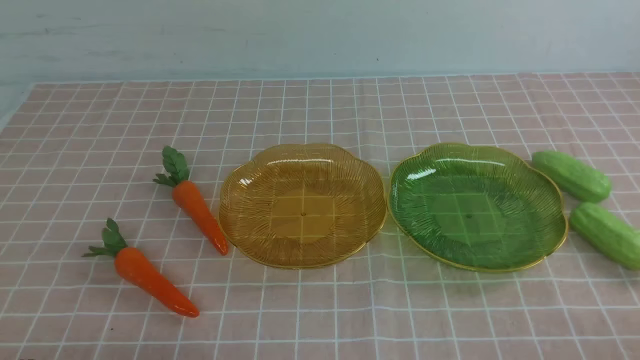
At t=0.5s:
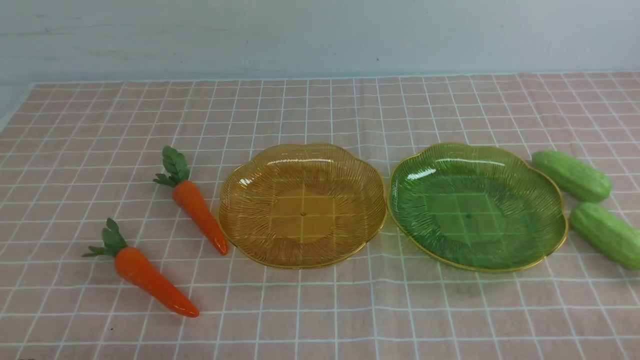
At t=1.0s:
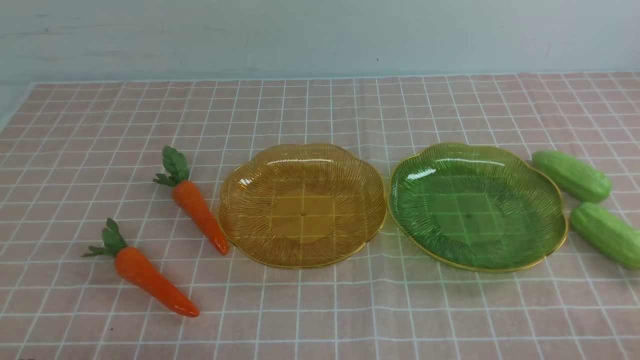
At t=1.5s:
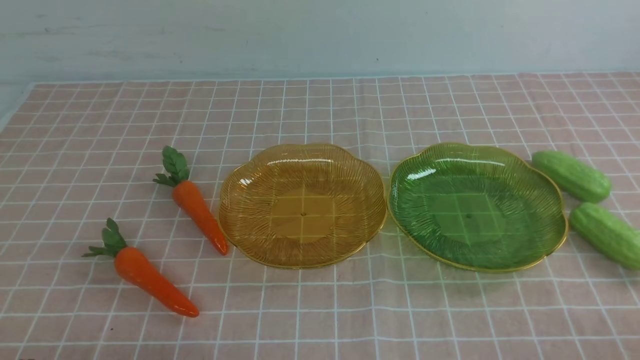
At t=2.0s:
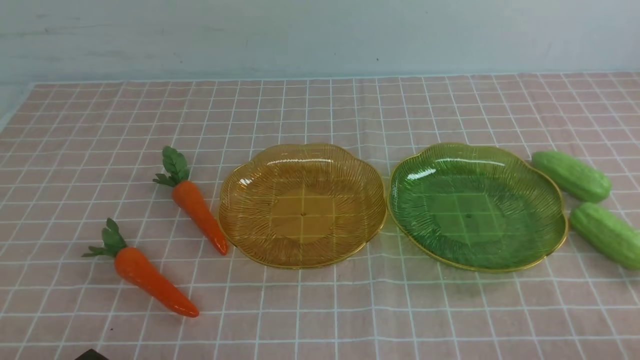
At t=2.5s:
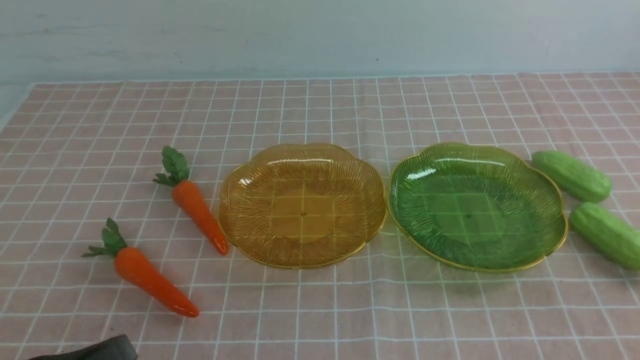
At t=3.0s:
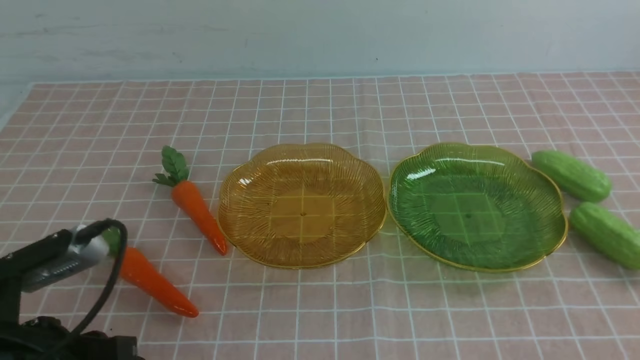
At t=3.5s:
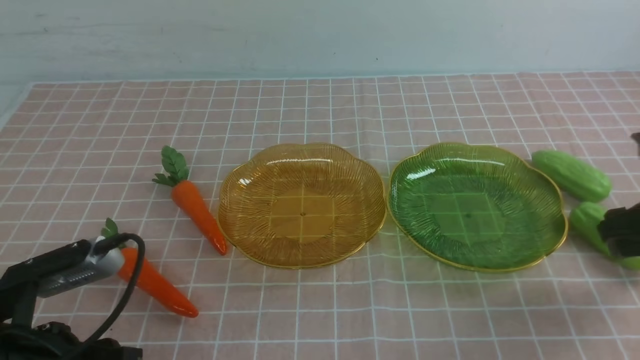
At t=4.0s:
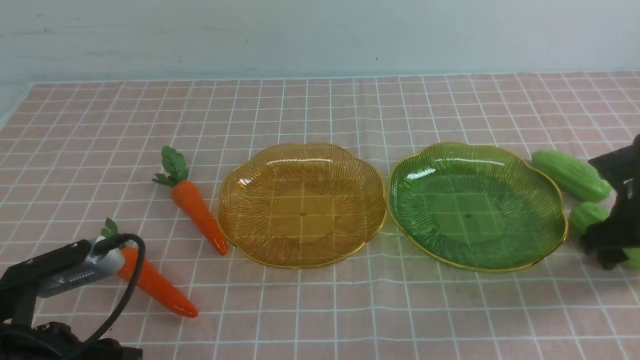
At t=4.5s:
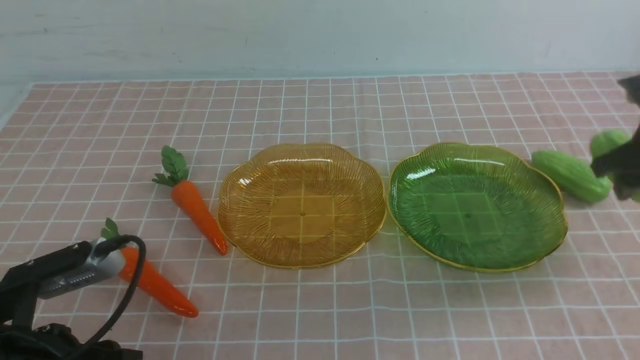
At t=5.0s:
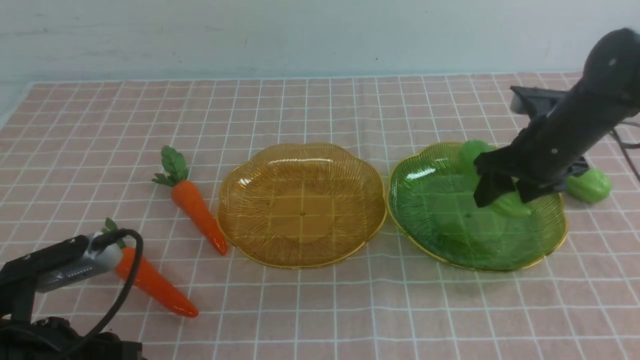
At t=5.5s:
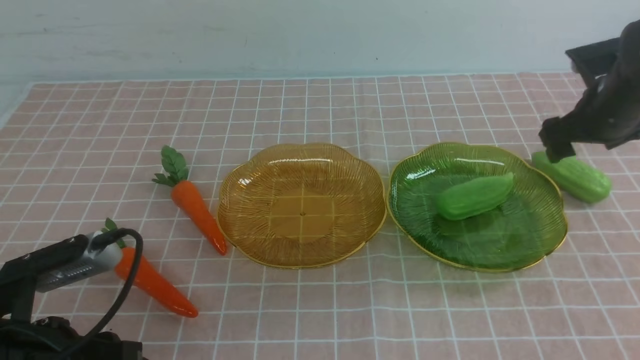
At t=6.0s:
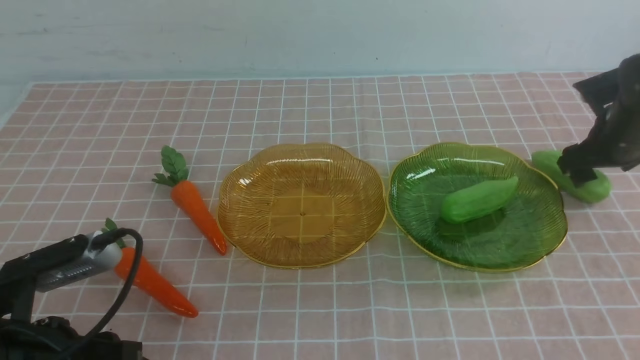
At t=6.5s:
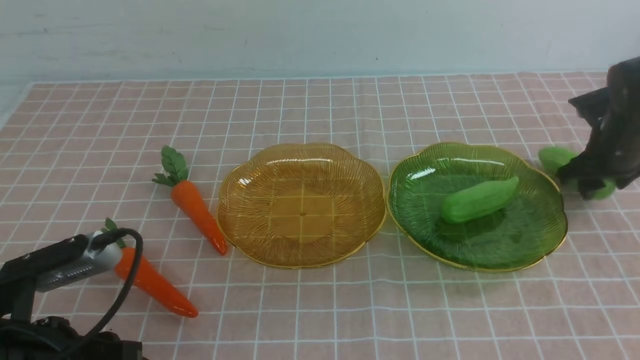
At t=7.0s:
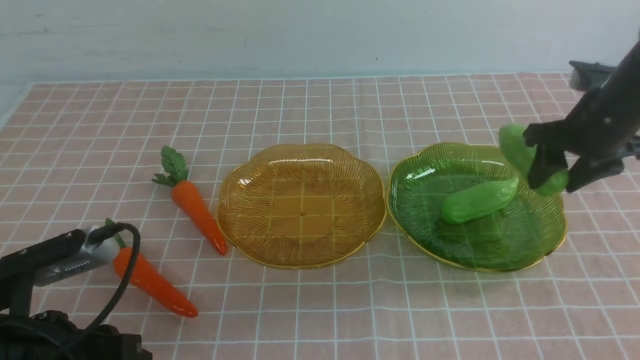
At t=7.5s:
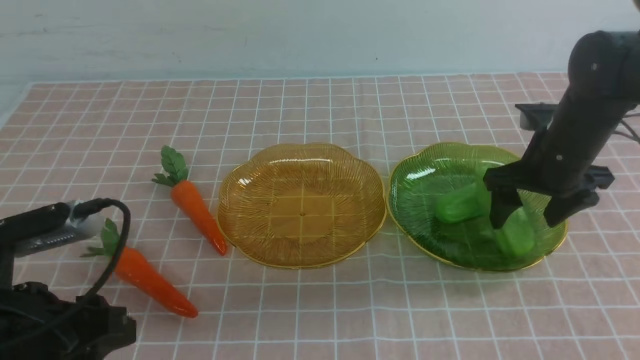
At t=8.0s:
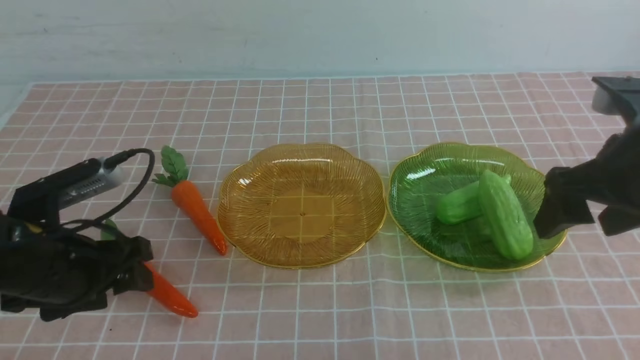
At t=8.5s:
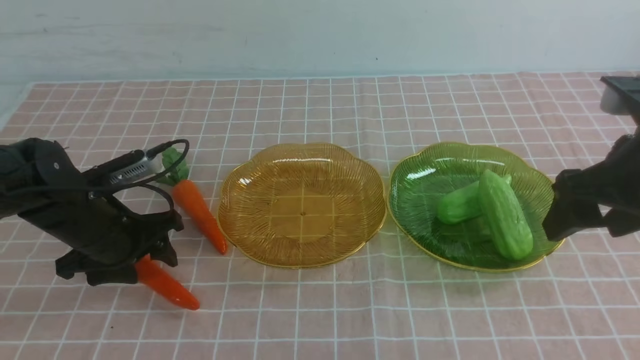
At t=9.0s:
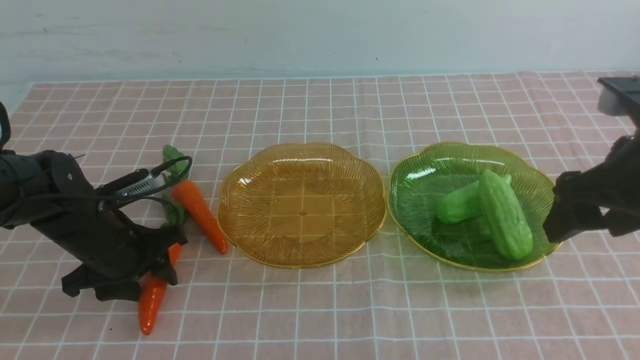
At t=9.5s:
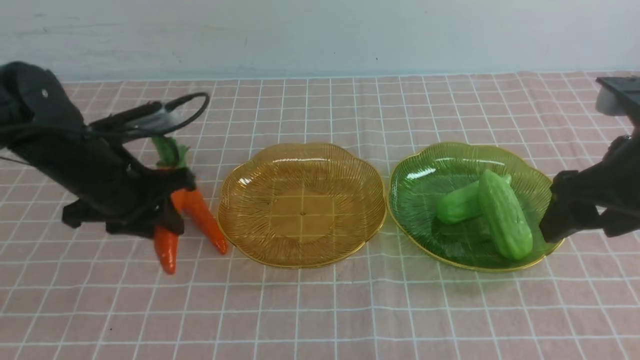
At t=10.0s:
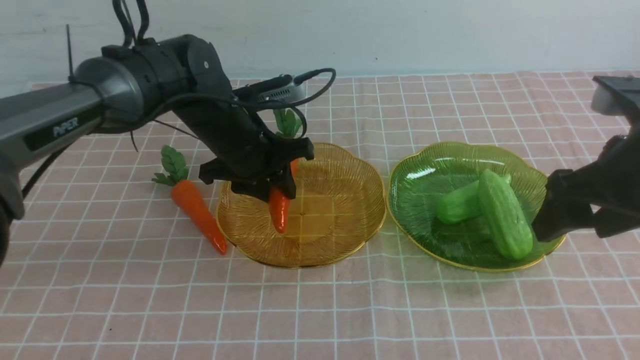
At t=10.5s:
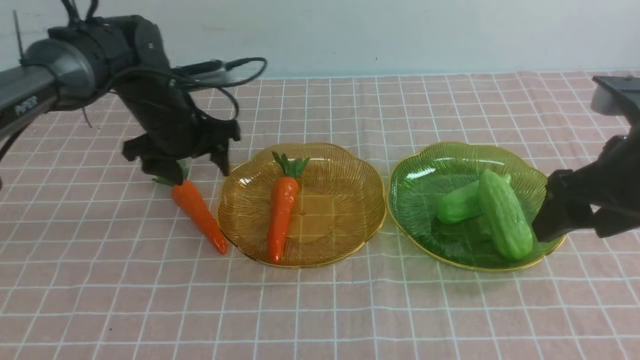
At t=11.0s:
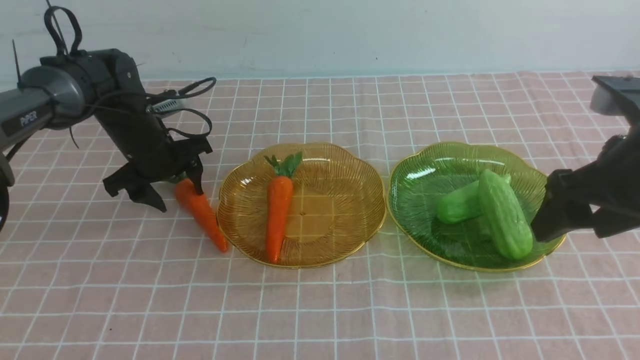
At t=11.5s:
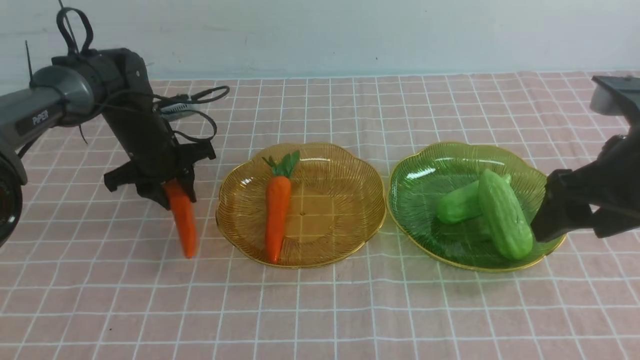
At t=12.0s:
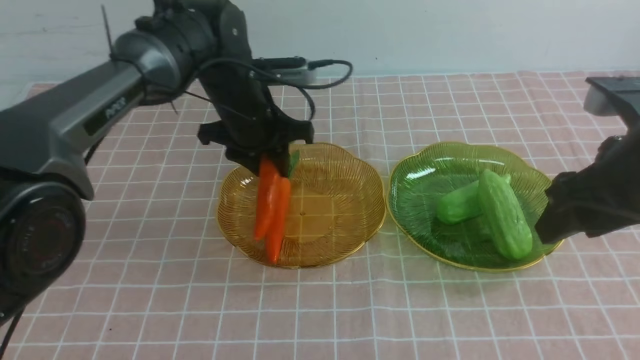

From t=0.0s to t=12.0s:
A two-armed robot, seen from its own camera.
Step, from t=0.0s to t=5.0s: use the right arm to grab a chayote and put it into the right plate.
Step, from t=5.5s to t=7.5s: use the right arm to grab a chayote and put it into the right plate.
Step, from t=8.0s to t=10.0s: use the left arm to grab a carrot and put it into the left plate.
From t=2.0s to t=4.0s: The right gripper goes approximately 30 cm forward, and opens its fingers. The left gripper heads forward and upward, covering roughly 10 cm, and opens up.
From t=4.0s to t=6.0s: The right gripper shifts approximately 10 cm forward.
From t=6.0s to t=8.0s: The right gripper is displaced backward, upward and to the left by roughly 20 cm. Meanwhile the left gripper shifts roughly 5 cm forward, and opens its fingers.
From t=8.0s to t=10.0s: The left gripper goes approximately 25 cm forward and to the right, and closes, then opens again.
From t=10.0s to t=12.0s: The left gripper heads to the right, covering some 5 cm; the right gripper shifts some 5 cm backward, and closes its fingers.

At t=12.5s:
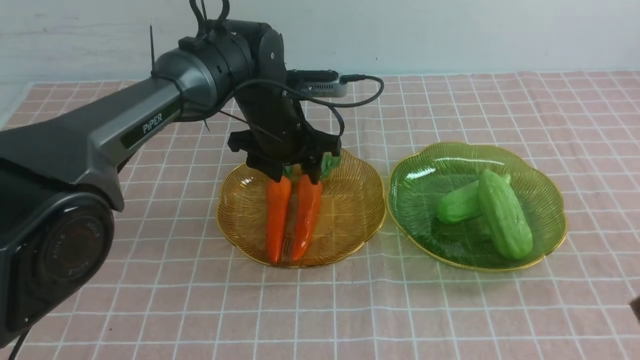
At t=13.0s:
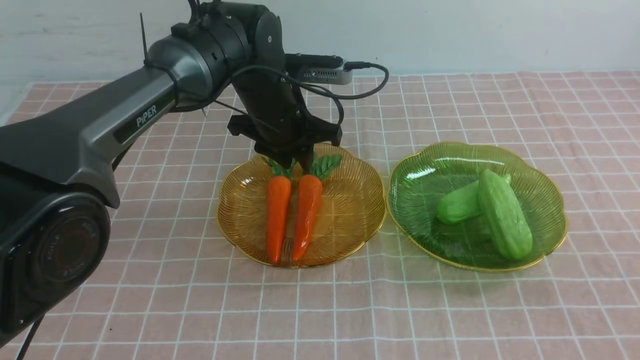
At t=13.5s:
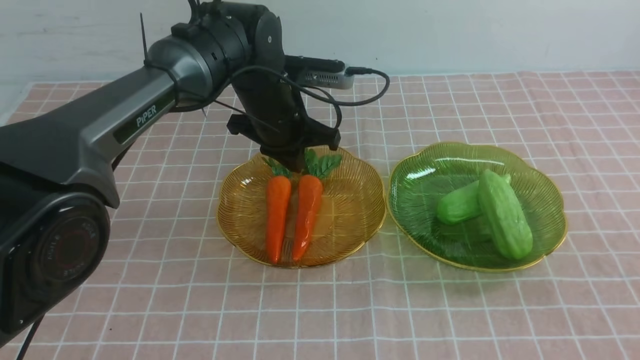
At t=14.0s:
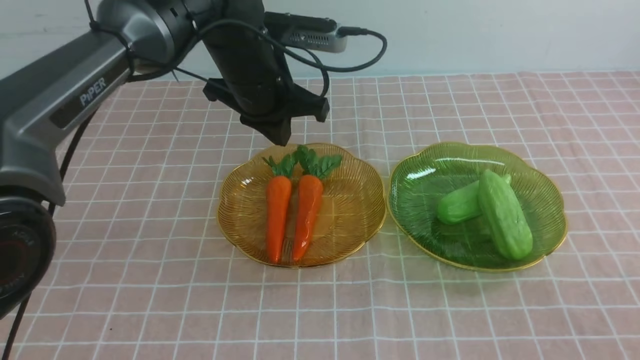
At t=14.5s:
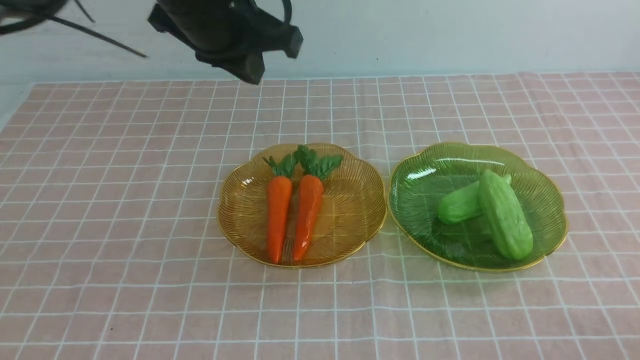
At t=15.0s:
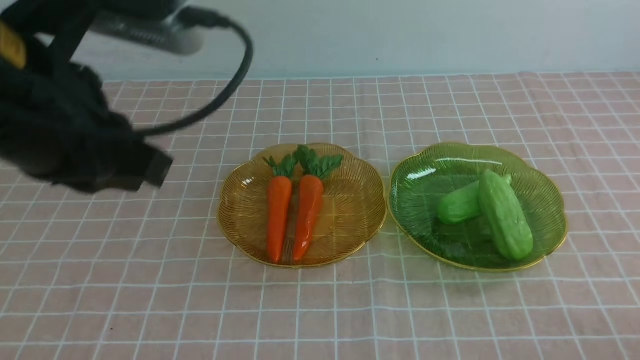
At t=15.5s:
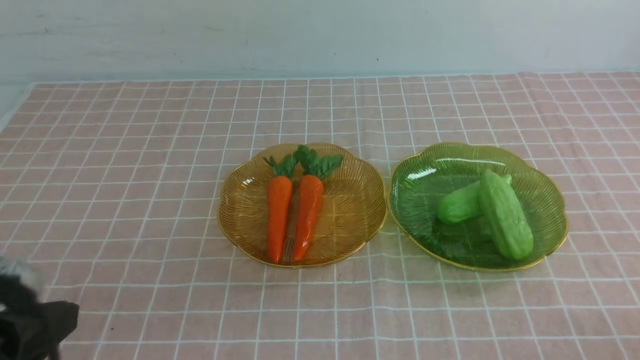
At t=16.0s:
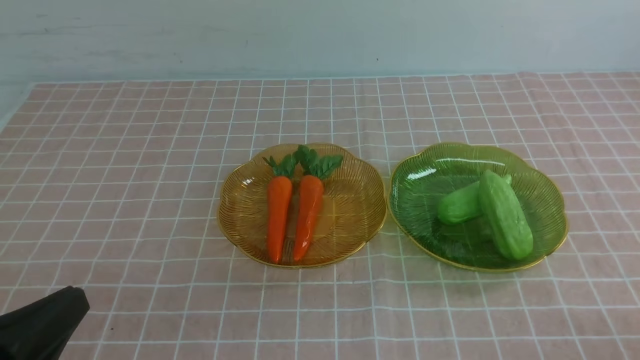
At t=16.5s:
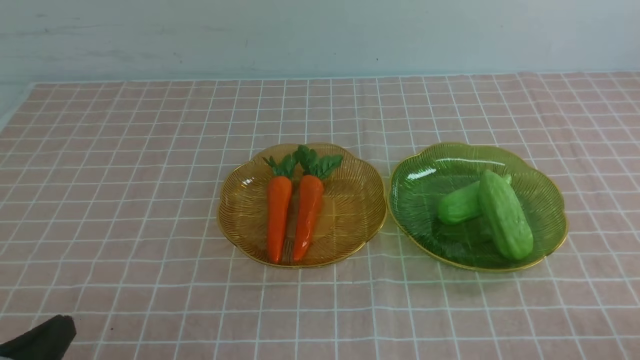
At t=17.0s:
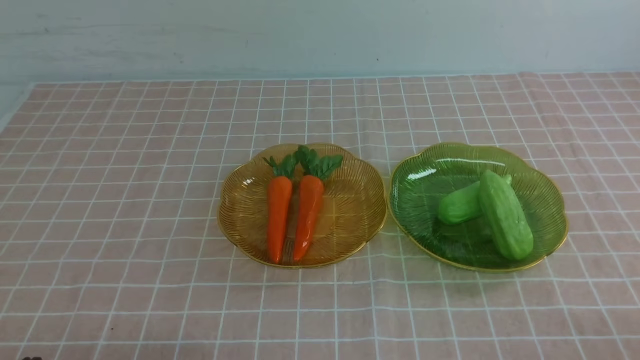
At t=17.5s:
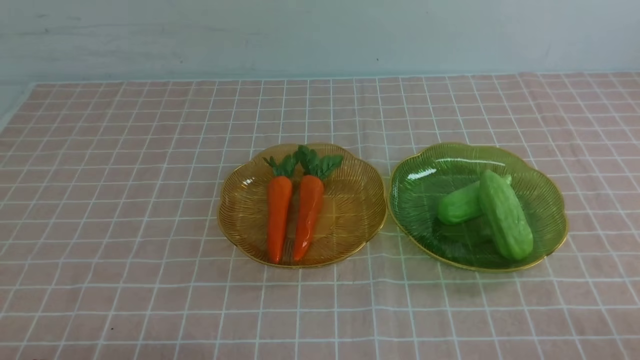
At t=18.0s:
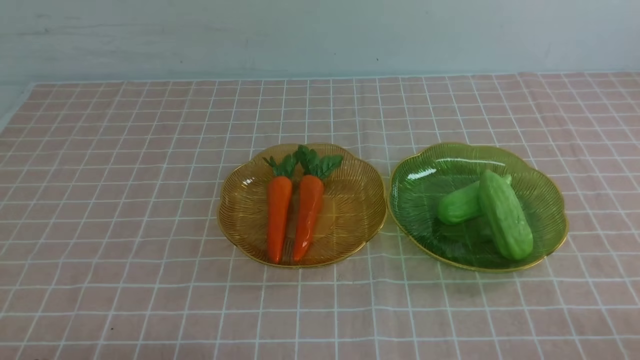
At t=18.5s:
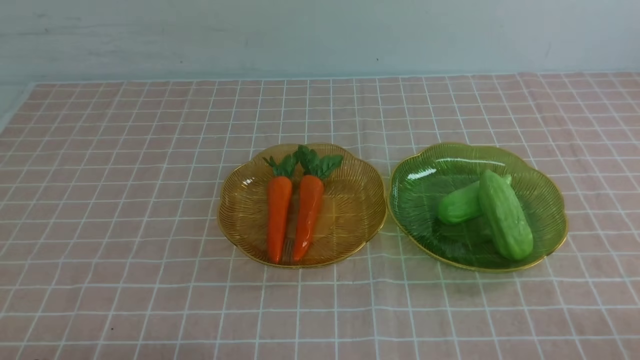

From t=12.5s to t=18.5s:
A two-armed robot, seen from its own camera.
From t=12.5s to t=14.5s: The left gripper travels upward and backward by roughly 15 cm, and closes its fingers; the right gripper goes some 10 cm downward.
From t=14.5s to t=16.5s: The left gripper travels backward, downward and to the left by about 35 cm.
From t=16.5s to t=18.5s: The left gripper goes roughly 5 cm downward.

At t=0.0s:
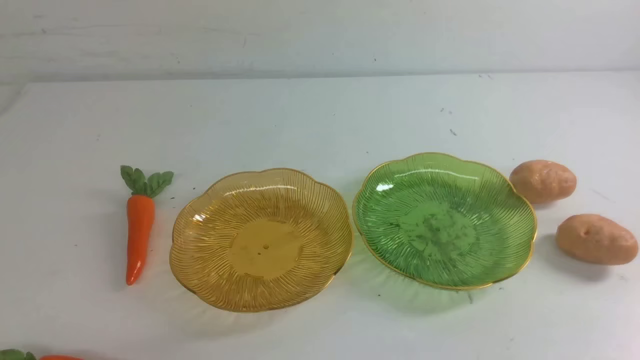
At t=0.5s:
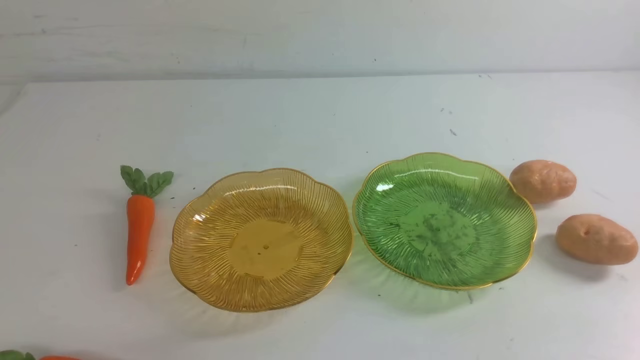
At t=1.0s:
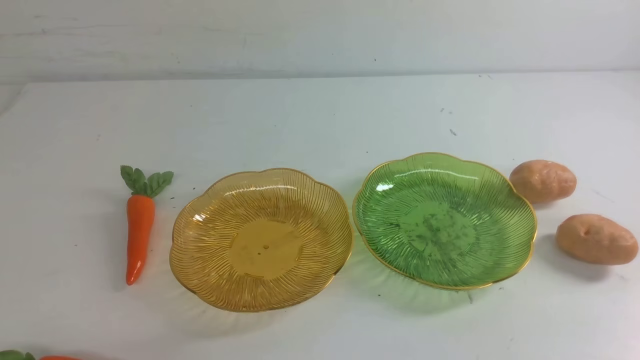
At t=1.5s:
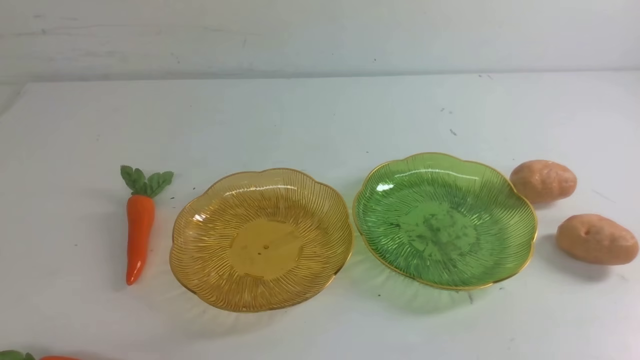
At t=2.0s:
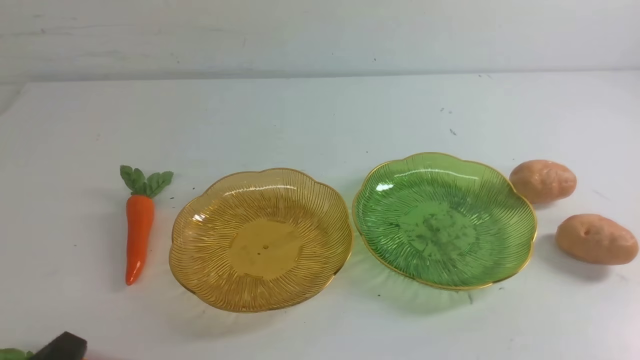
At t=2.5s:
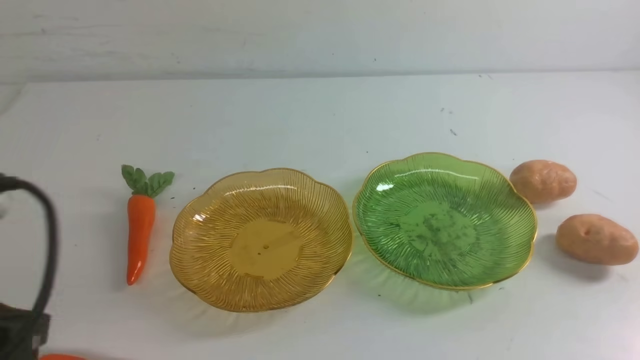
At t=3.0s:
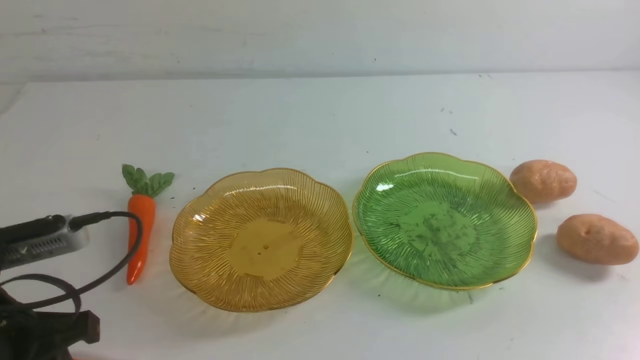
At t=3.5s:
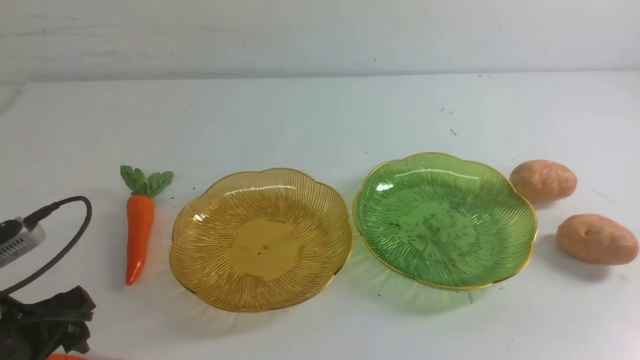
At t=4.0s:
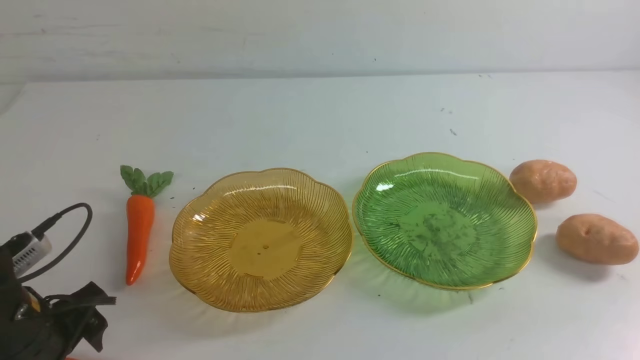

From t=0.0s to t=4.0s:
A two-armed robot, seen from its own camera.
From t=2.0s to t=4.0s: The left gripper travels forward by about 15 cm, travels upward and back again, approximately 10 cm each way, and opens.
